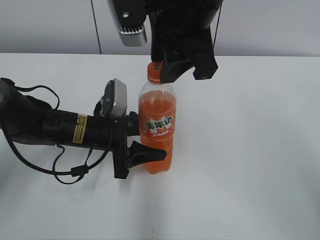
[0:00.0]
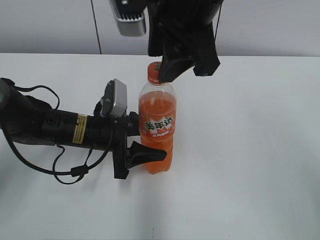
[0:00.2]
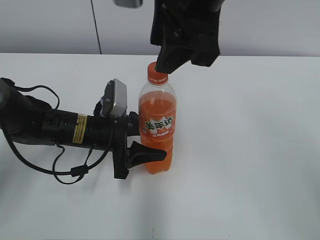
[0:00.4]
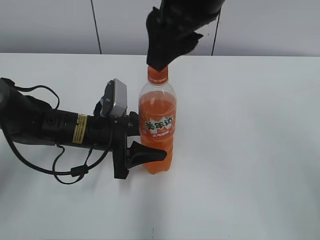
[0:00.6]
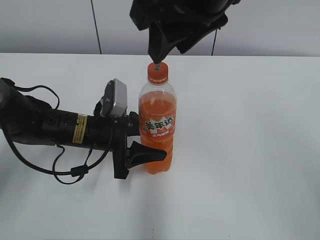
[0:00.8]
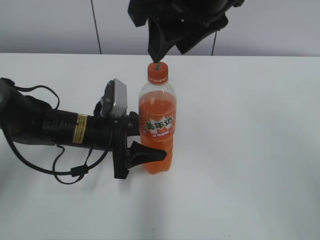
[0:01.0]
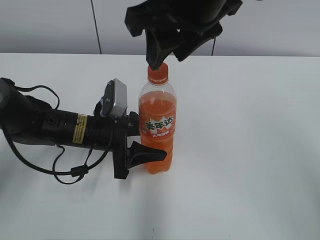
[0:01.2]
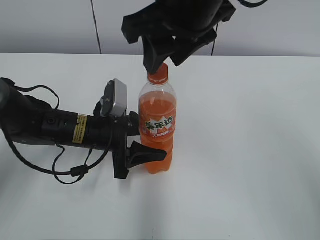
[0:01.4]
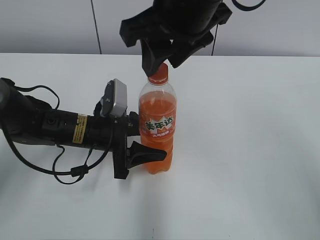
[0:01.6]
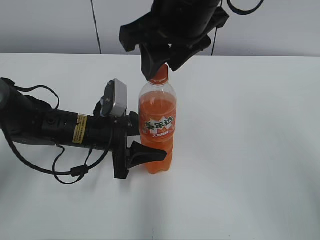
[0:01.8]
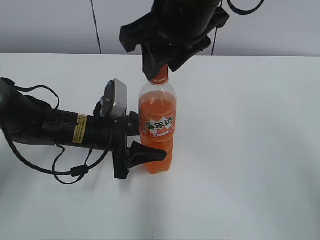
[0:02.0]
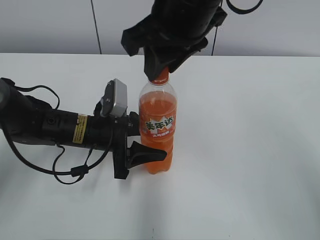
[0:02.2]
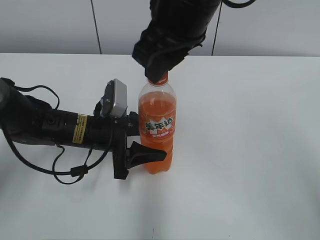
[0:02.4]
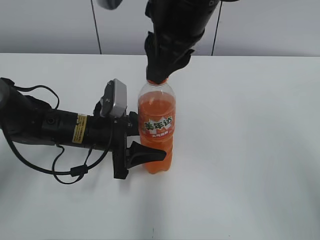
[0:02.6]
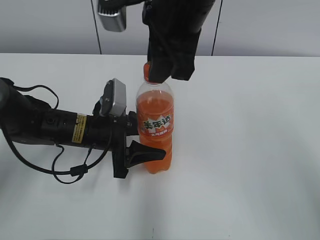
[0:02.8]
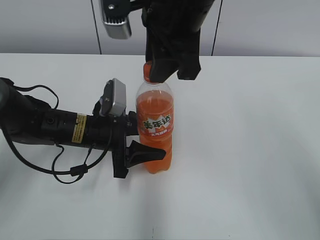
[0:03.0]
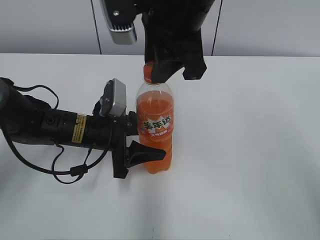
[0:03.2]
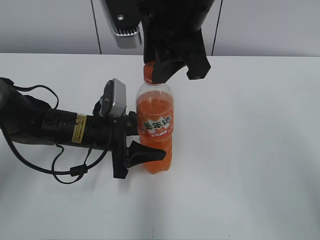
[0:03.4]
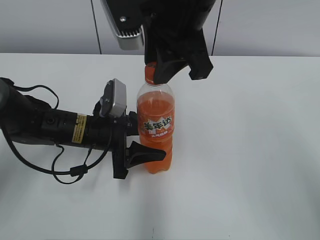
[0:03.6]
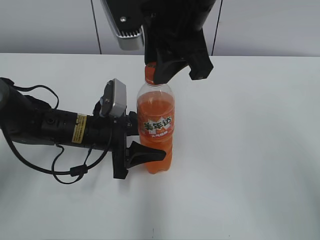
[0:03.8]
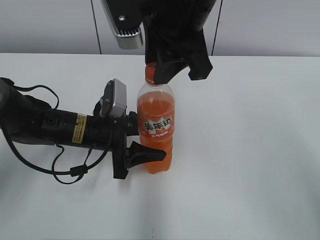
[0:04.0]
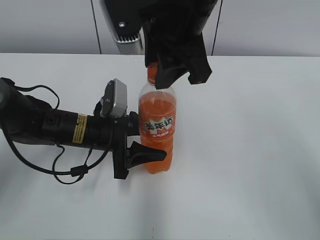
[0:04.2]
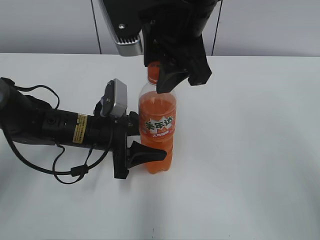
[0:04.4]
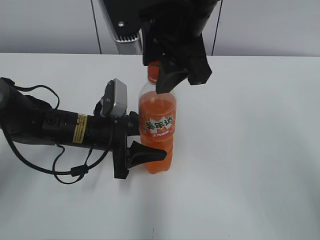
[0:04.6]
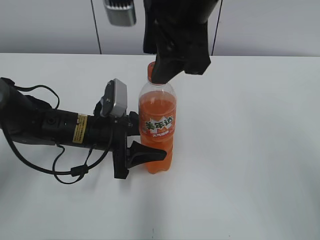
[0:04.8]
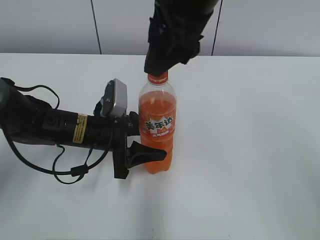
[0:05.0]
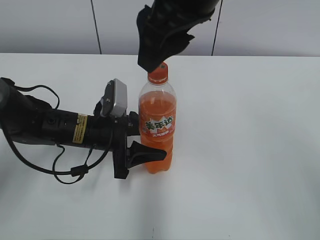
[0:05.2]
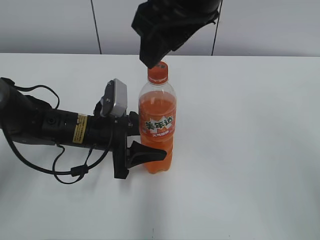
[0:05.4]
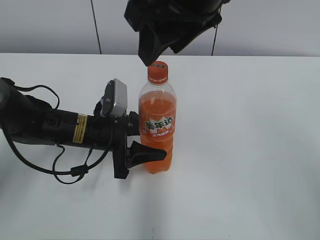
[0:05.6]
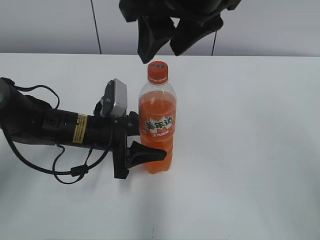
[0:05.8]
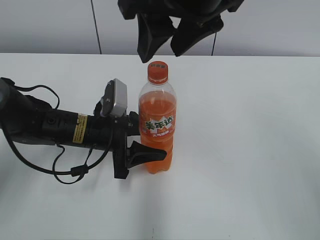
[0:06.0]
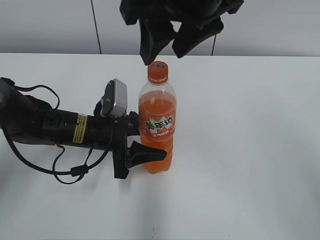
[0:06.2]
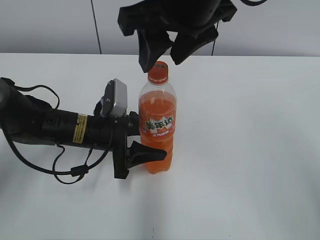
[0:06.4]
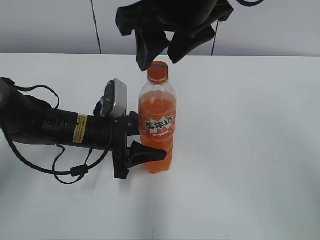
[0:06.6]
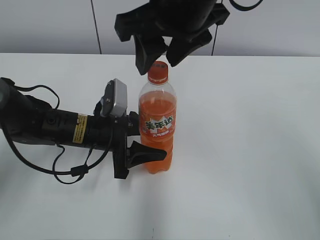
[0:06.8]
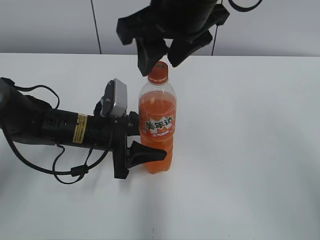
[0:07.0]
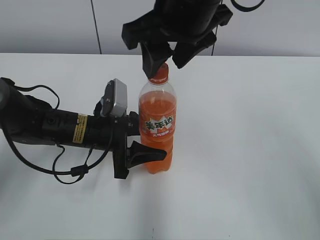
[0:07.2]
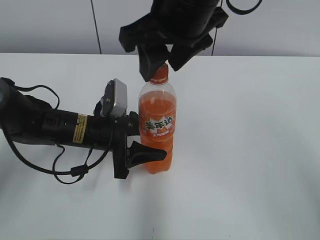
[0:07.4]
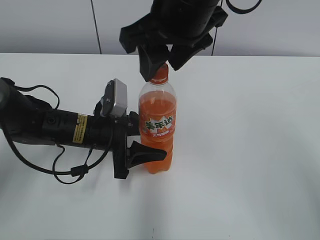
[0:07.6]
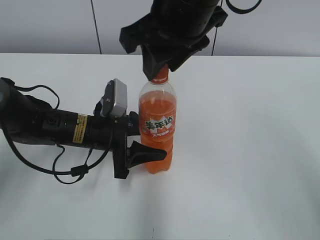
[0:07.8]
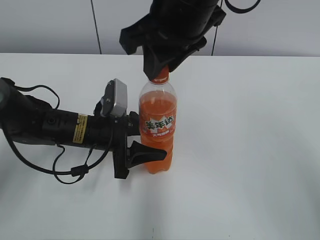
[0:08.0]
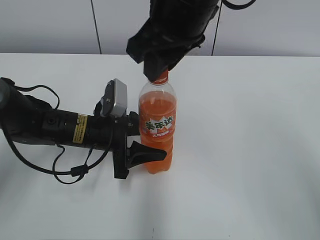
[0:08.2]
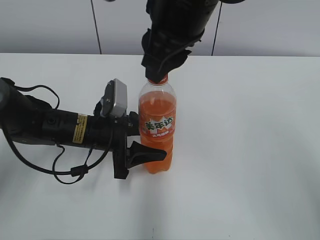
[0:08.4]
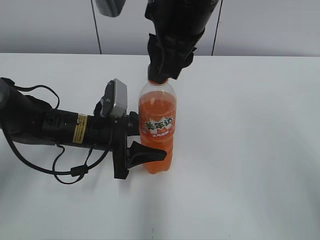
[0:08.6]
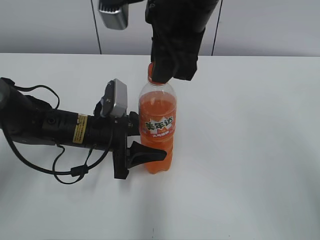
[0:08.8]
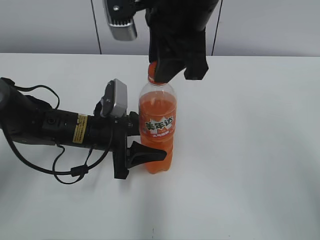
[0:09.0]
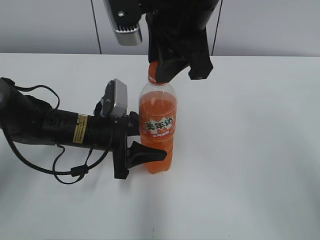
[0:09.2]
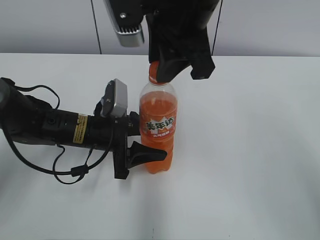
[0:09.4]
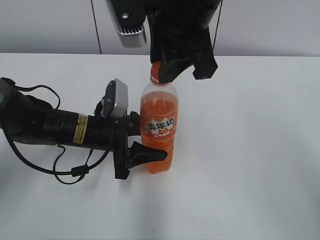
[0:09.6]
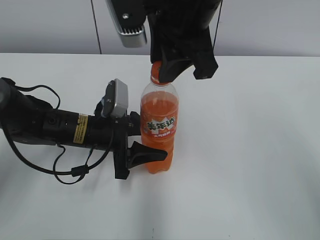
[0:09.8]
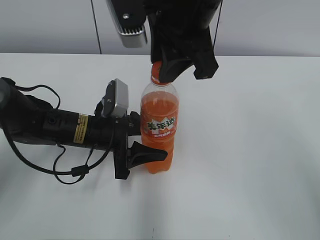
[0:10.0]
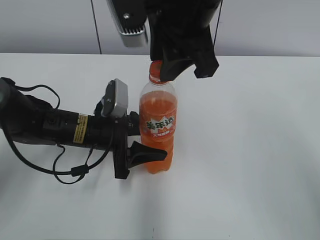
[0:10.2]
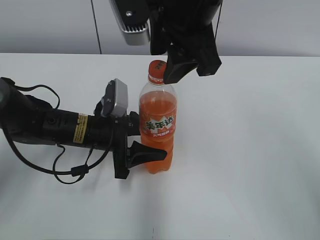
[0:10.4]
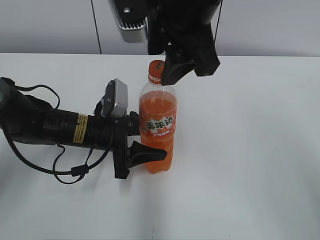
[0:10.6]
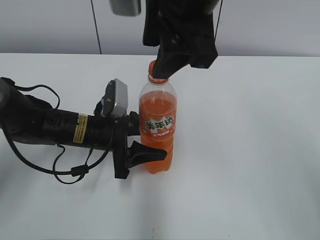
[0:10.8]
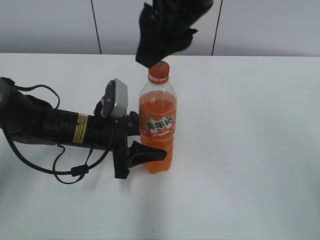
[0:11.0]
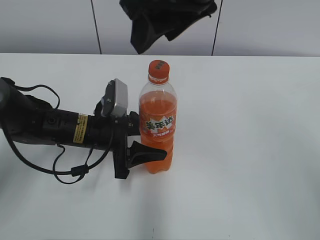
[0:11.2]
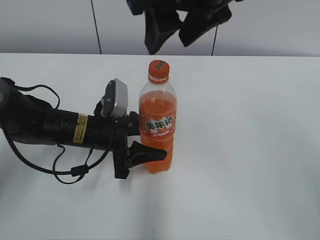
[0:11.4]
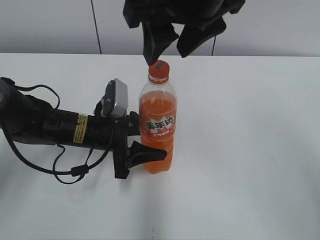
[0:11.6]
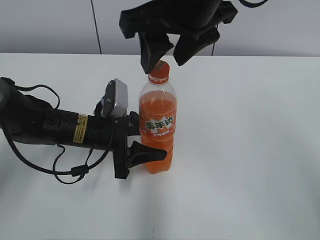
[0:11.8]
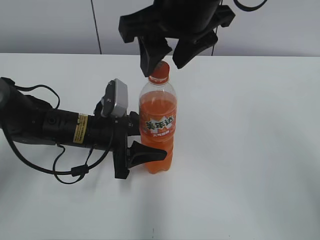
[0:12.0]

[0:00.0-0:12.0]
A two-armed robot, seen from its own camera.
0:03.0 to 0:04.4: The right gripper opens its fingers.
0:06.0 to 0:07.6: The grippers stay close to where they were, moving slightly.
0:07.6 to 0:09.0: The right gripper closes.
0:09.0 to 0:10.4: The right gripper opens up.

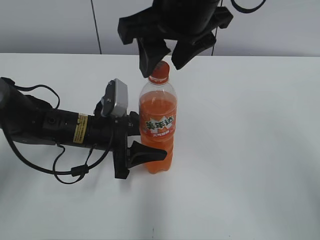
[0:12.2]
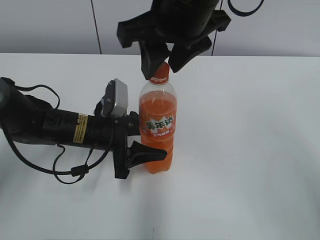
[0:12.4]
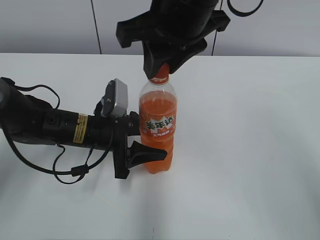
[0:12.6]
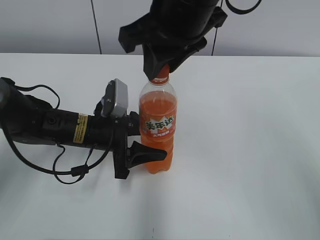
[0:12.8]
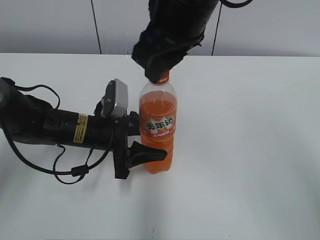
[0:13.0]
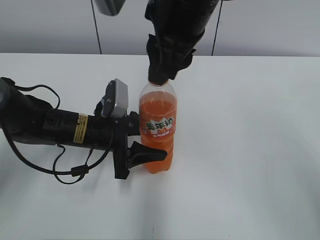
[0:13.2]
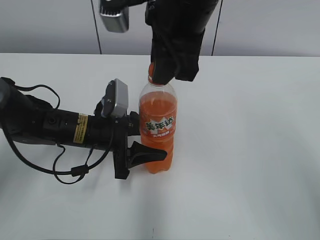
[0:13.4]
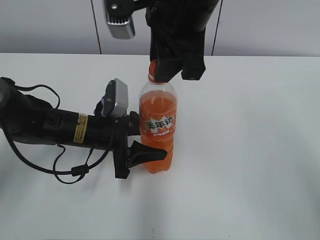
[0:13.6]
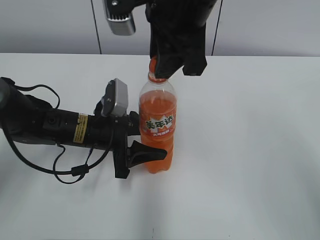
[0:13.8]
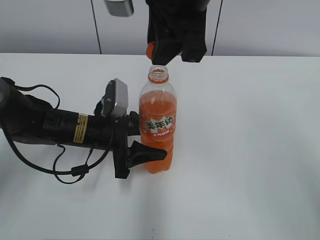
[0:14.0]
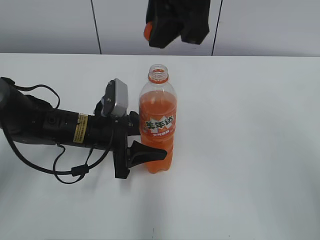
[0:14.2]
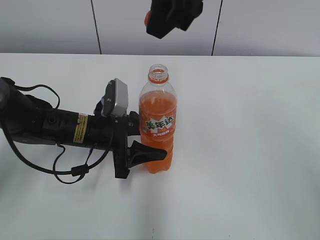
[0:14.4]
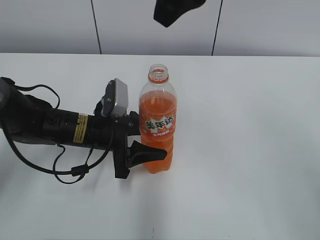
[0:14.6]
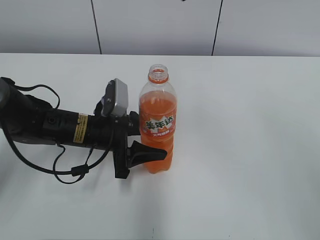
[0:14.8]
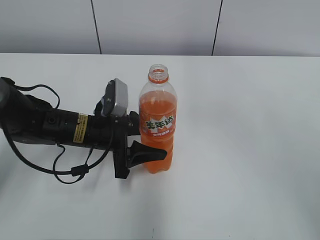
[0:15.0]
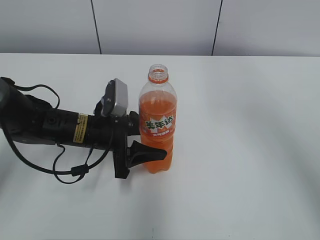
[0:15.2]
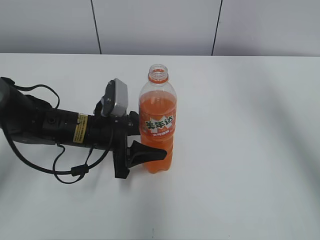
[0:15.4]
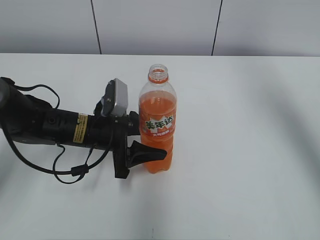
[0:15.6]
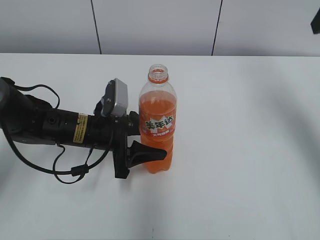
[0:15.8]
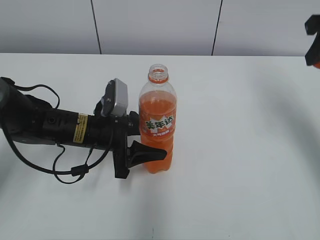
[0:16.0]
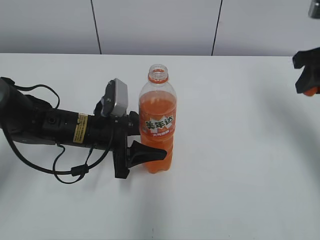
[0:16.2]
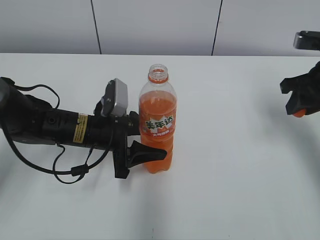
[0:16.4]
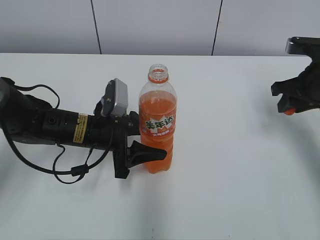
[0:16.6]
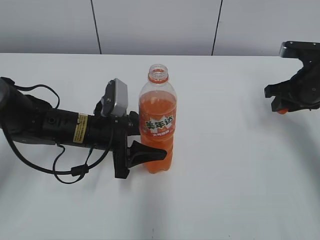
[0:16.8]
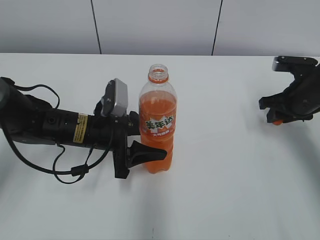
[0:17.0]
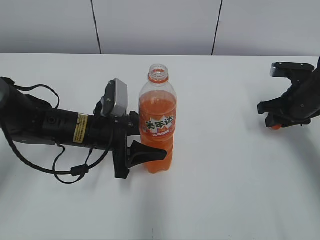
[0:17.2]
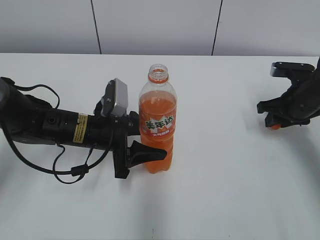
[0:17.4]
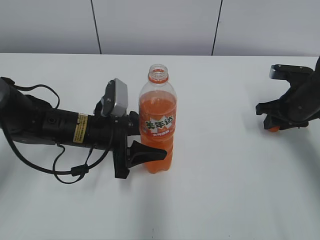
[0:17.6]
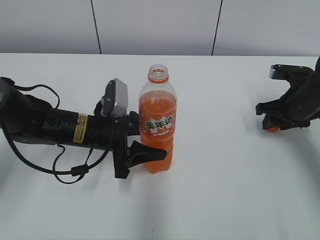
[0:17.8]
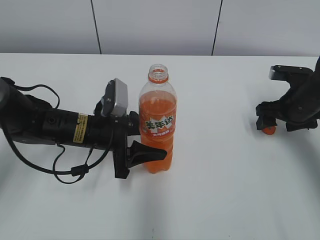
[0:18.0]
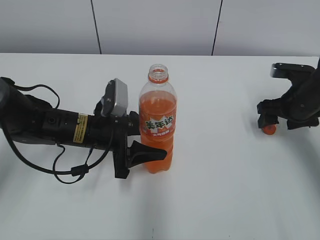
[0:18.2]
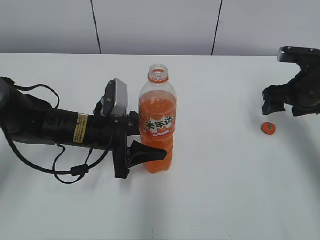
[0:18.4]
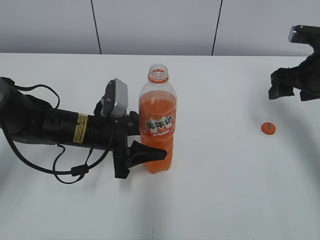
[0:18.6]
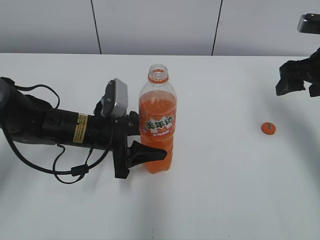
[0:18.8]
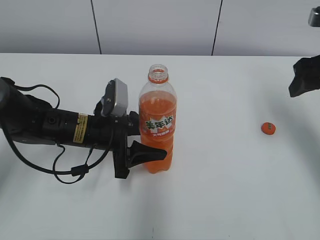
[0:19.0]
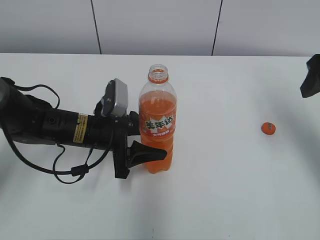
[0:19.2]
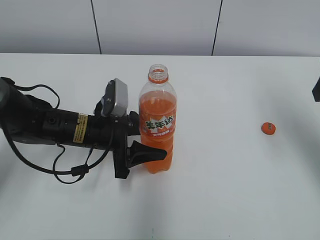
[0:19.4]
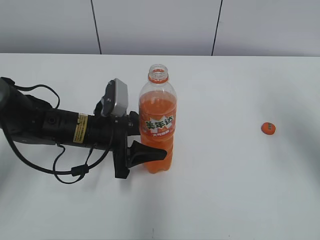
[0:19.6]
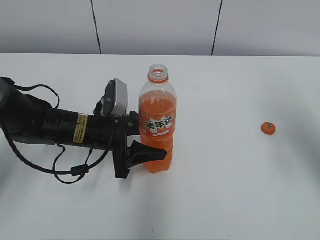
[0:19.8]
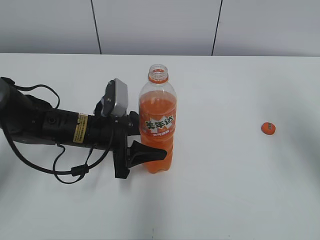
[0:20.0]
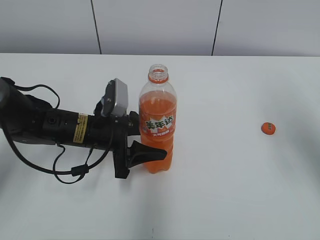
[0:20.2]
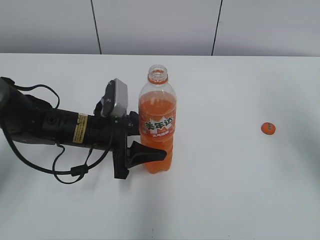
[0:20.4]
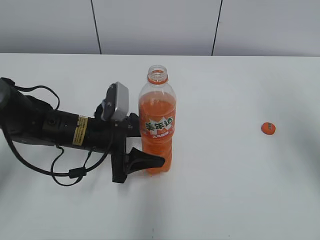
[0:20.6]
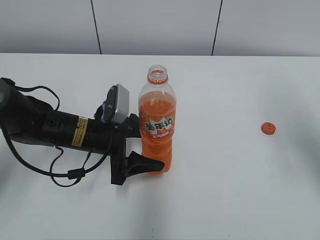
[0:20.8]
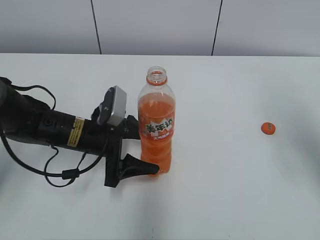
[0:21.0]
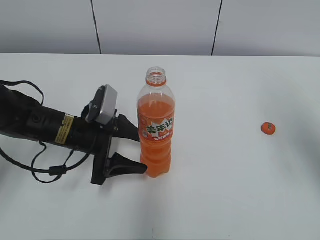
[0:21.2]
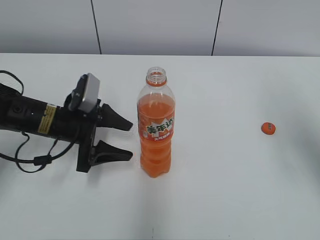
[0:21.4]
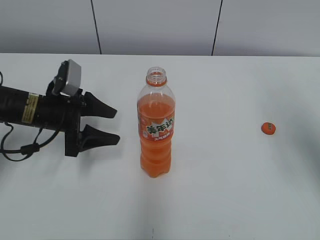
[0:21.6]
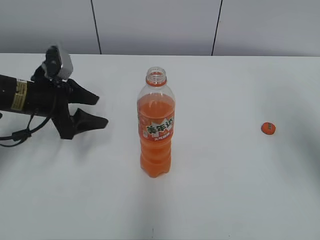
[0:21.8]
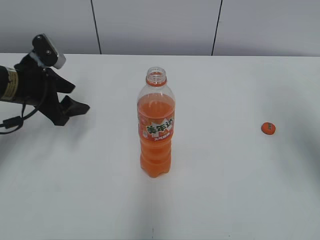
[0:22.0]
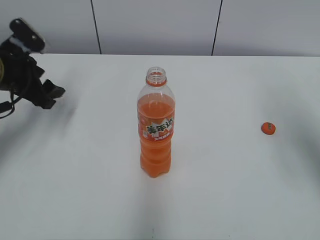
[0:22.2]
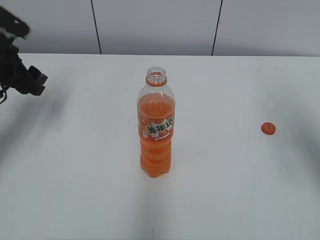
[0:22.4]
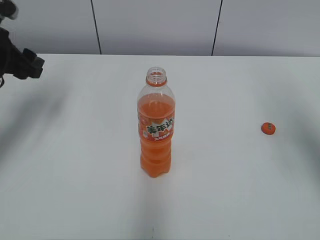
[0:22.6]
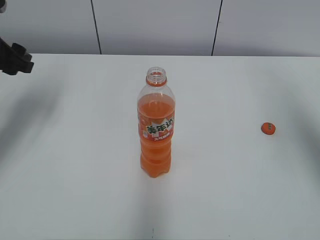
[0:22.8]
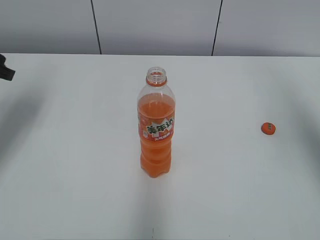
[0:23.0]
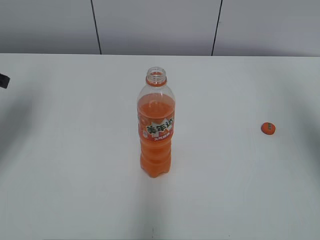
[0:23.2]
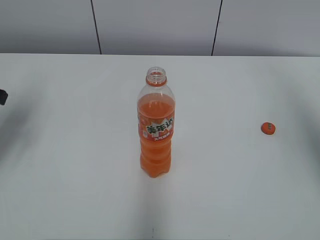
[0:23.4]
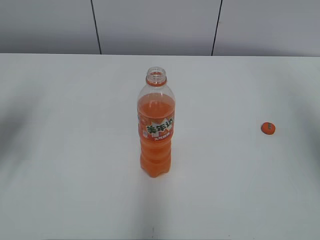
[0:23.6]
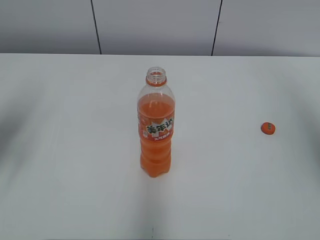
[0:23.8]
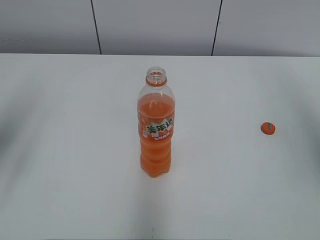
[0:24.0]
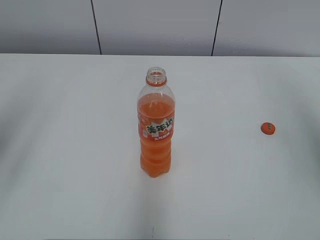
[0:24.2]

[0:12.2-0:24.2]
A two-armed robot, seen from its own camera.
Step, 0:14.0 to 0:18.0: Place the bottle cap on the right.
0:12.2 to 0:13.8: The right gripper closes its fingers.
0:13.8 to 0:15.2: The right gripper is displaced to the right and upward by approximately 20 cm.
0:15.2 to 0:16.6: The right gripper shifts roughly 30 cm downward and to the right.
0:16.6 to 0:18.2: The right gripper travels downward by roughly 5 cm, and opens up.
0:18.2 to 0:19.8: The right gripper moves upward and backward, some 25 cm.
0:19.8 to 0:21.2: The left gripper opens up.
0:21.2 to 0:22.6: The left gripper shifts approximately 20 cm upward and to the left.
0:22.6 to 0:24.2: The left gripper goes about 20 cm backward and upward.
